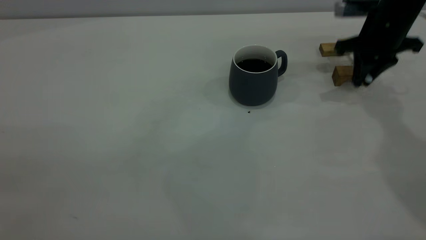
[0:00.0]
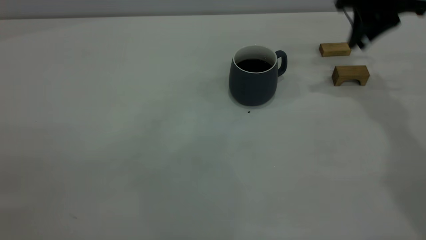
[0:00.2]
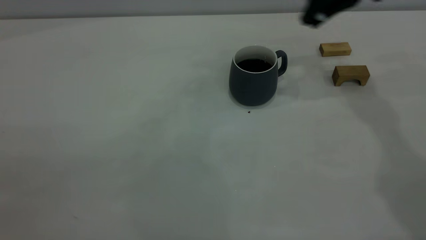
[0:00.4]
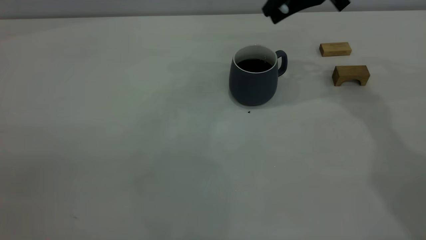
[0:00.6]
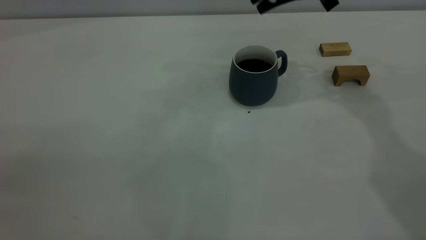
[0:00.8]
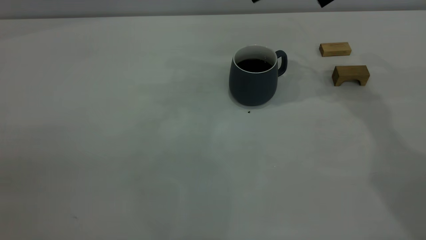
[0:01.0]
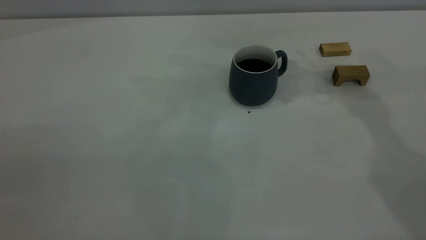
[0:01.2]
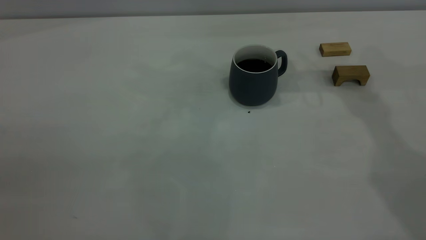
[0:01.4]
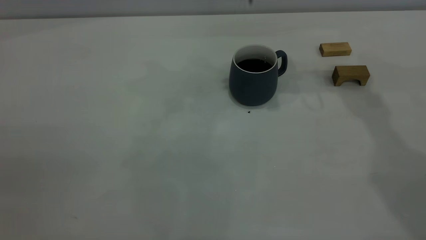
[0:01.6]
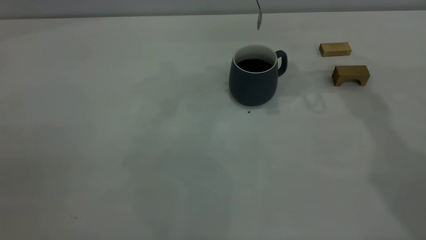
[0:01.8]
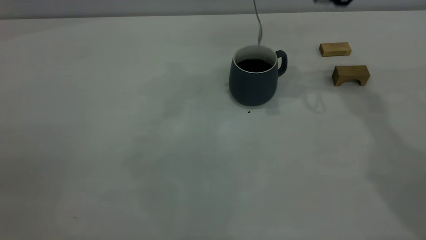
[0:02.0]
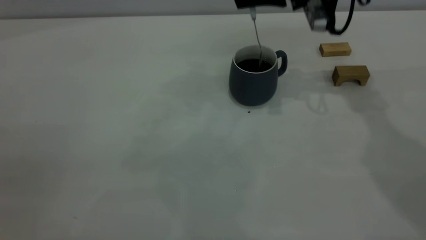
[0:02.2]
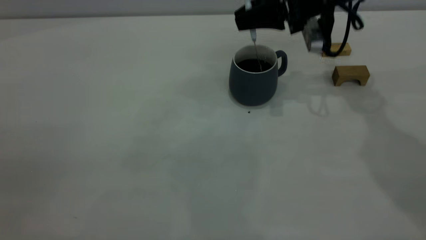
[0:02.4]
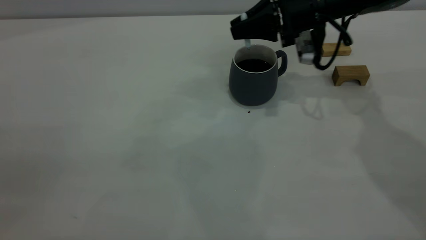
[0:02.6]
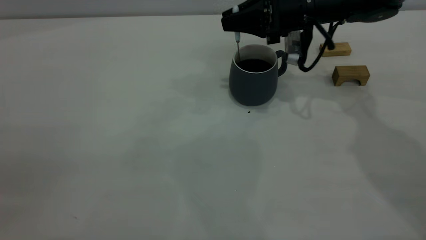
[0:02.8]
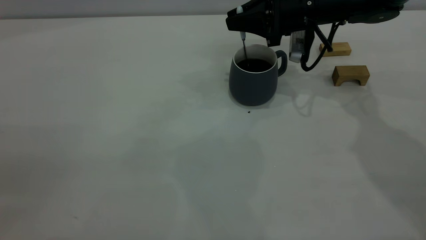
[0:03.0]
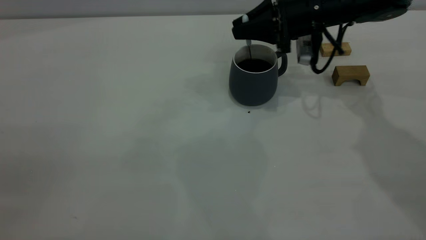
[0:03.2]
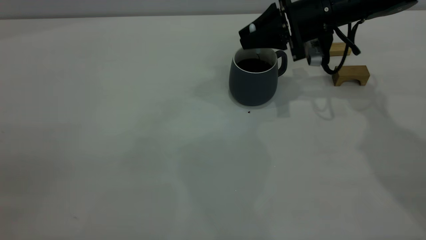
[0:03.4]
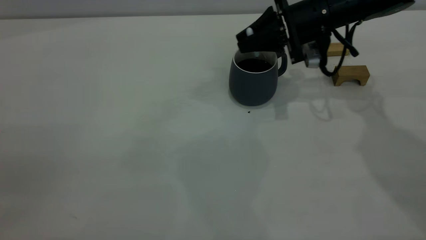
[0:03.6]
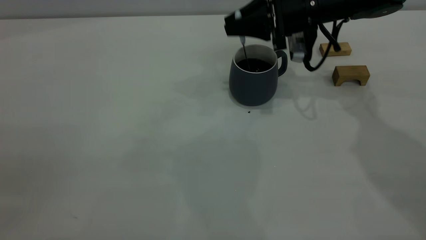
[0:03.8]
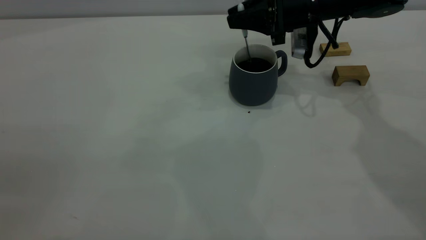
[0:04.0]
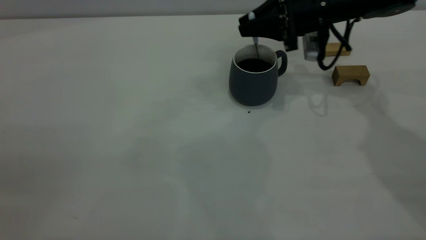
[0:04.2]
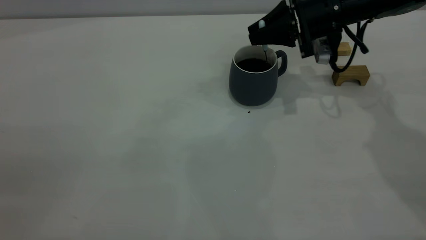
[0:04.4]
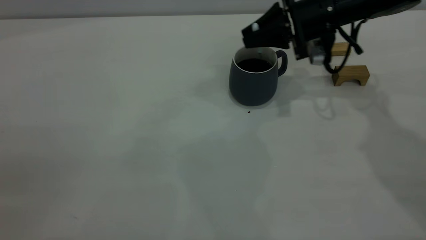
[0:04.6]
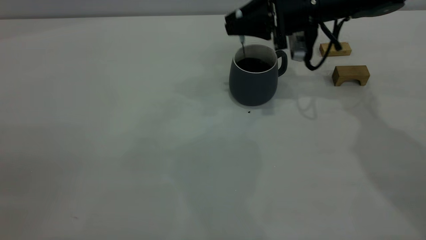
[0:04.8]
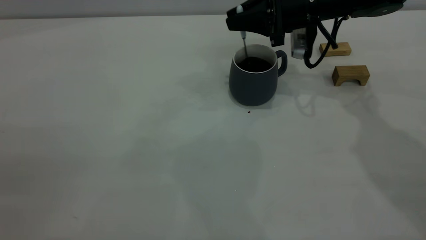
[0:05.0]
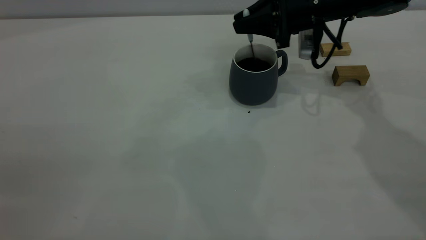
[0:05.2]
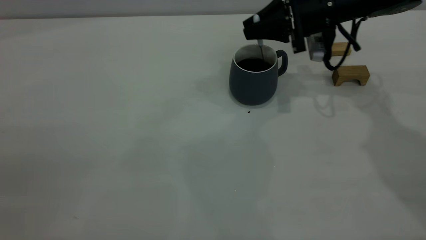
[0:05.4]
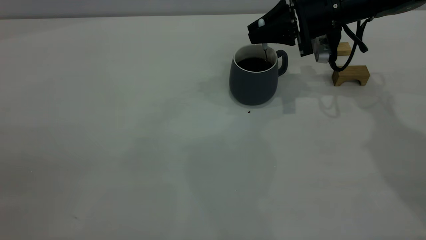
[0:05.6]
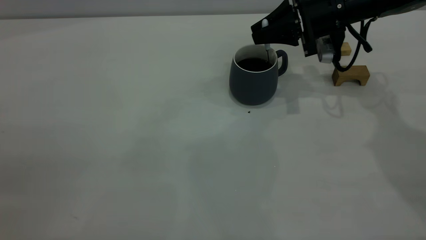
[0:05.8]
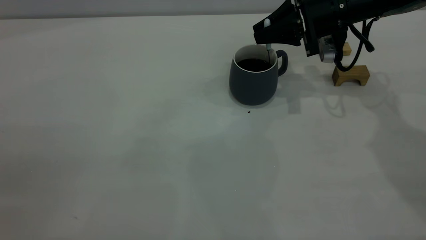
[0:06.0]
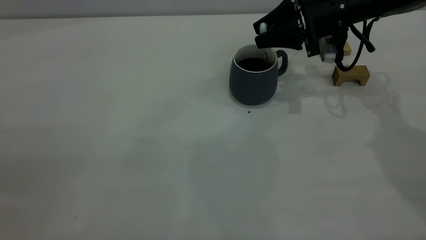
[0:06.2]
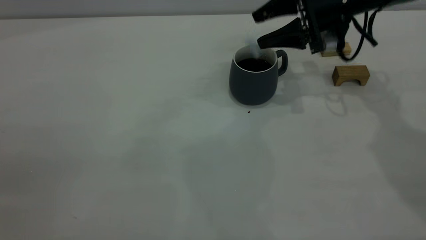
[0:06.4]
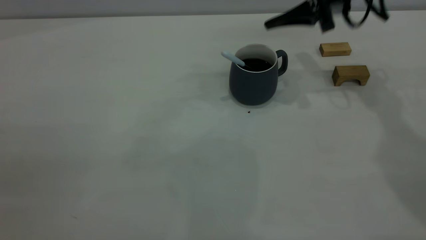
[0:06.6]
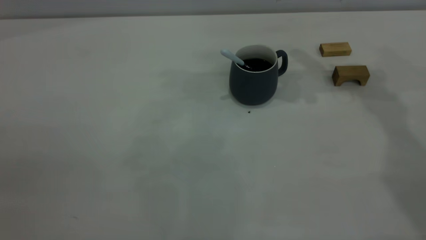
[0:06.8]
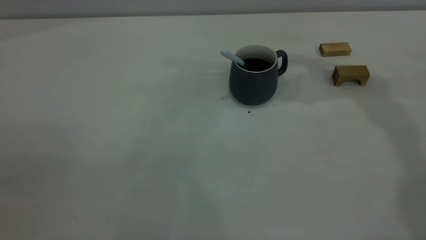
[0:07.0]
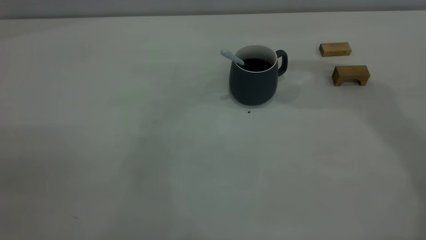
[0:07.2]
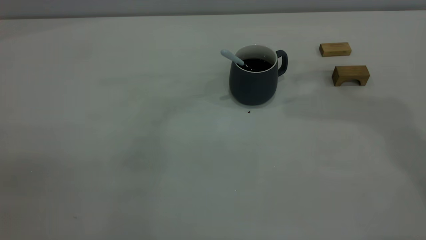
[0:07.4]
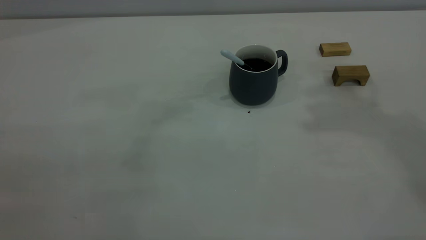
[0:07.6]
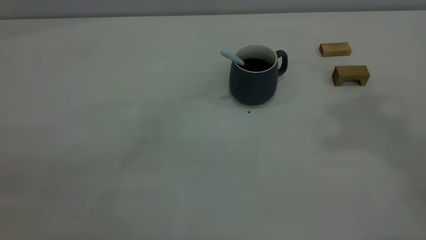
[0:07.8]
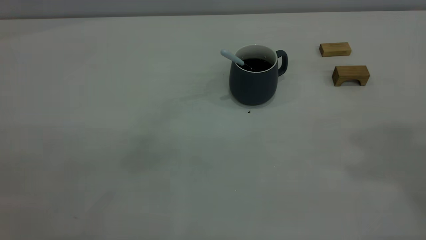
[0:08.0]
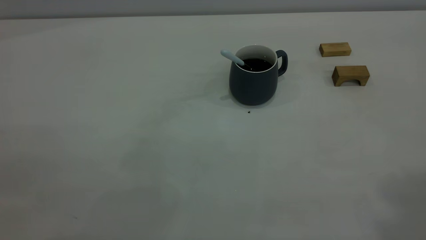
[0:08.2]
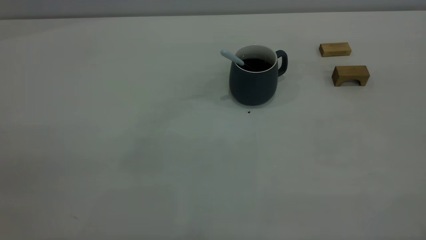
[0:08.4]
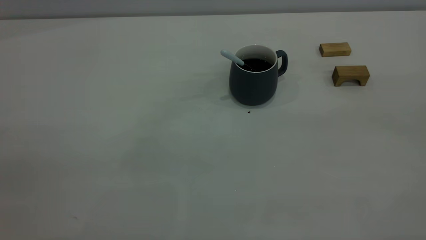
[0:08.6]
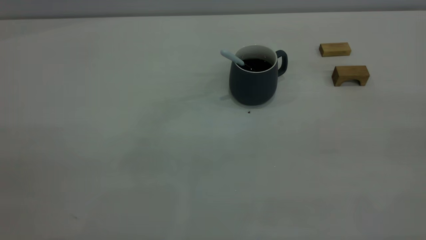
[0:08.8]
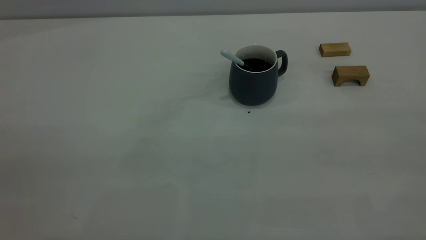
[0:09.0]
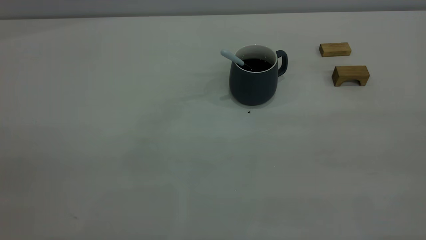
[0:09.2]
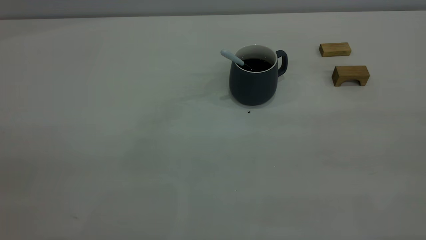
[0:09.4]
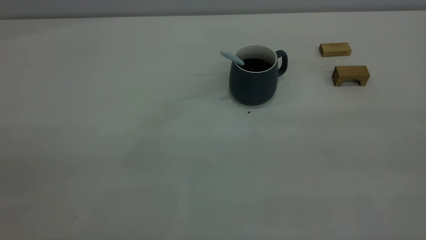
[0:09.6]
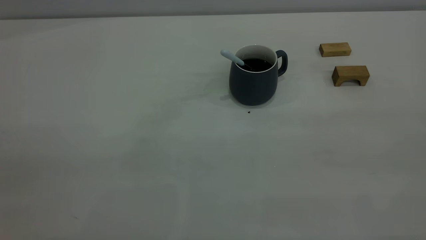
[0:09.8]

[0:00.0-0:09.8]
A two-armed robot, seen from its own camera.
Step, 0:00.2 to 0:06.4: Stir the coffee in the cup.
0:00.0 to 0:01.4: The right gripper travels upward and to the left by some 15 cm.
0:01.4 to 0:02.8: The right gripper heads downward, covering approximately 15 cm.
0:02.8 to 0:05.6: The grippers stay close to where they were, moving slightly.
0:05.6 to 0:07.0: The right gripper heads upward, covering about 20 cm, and opens up.

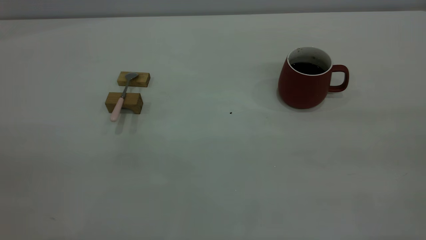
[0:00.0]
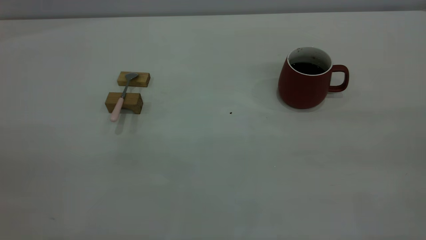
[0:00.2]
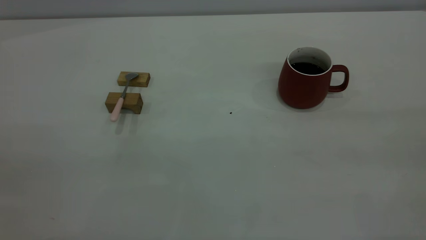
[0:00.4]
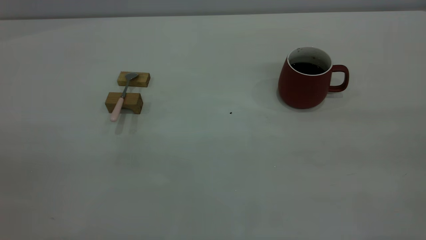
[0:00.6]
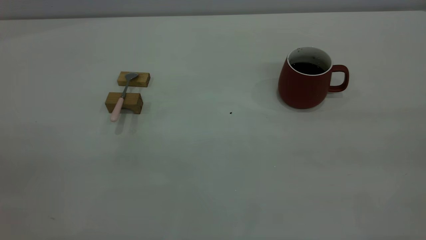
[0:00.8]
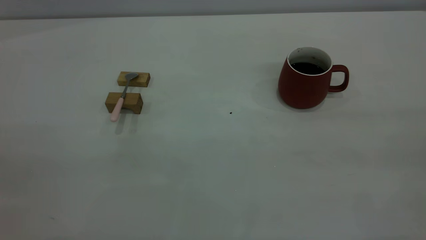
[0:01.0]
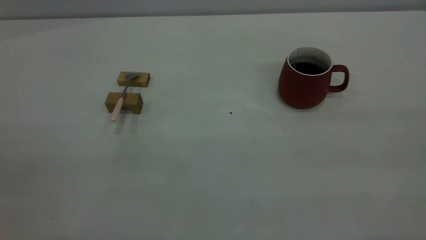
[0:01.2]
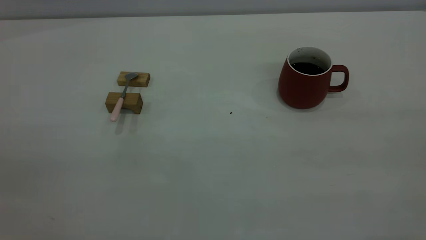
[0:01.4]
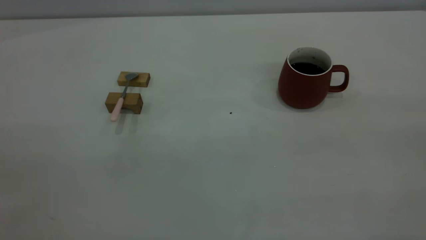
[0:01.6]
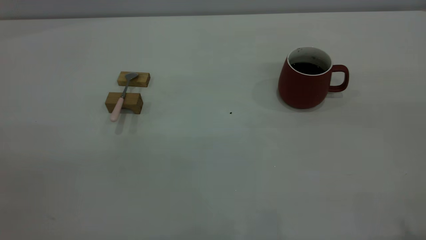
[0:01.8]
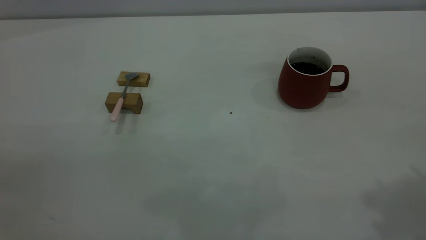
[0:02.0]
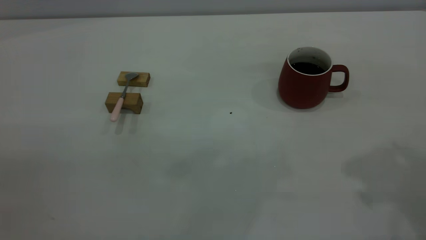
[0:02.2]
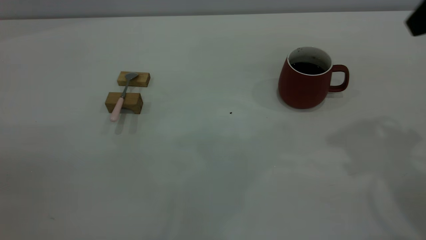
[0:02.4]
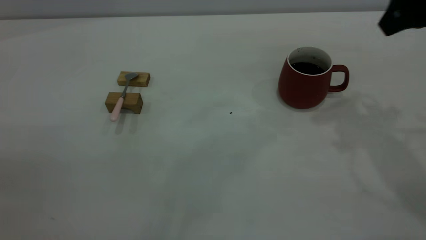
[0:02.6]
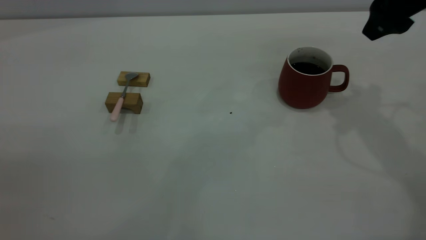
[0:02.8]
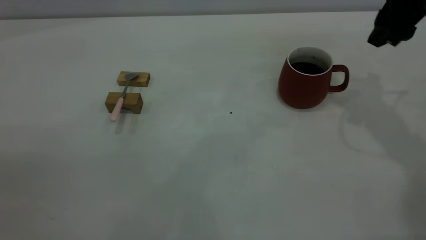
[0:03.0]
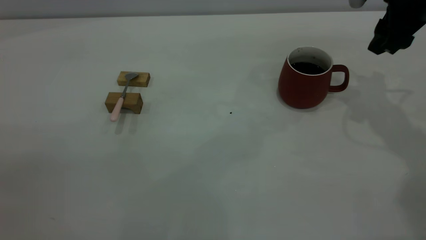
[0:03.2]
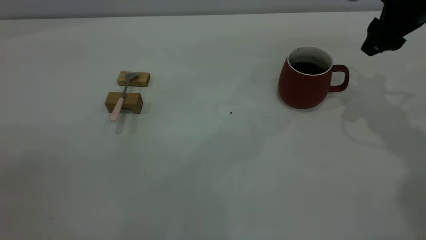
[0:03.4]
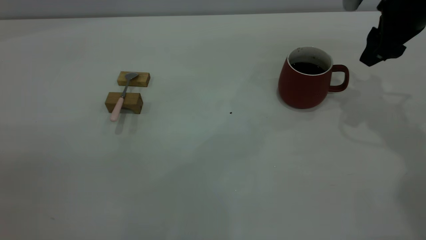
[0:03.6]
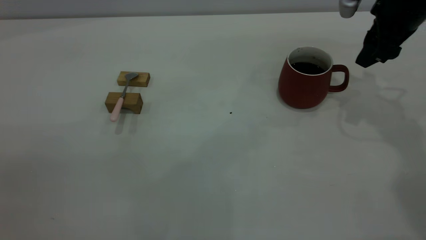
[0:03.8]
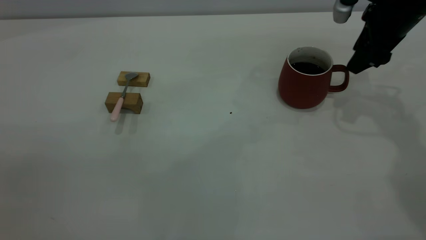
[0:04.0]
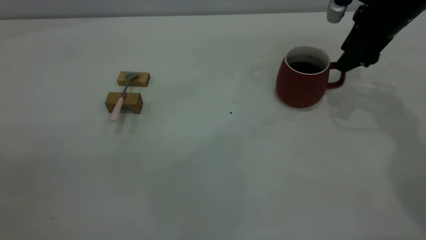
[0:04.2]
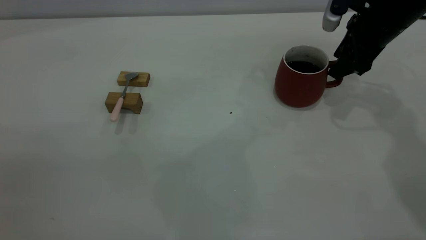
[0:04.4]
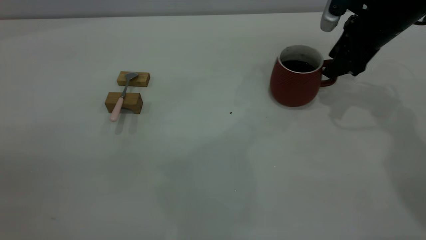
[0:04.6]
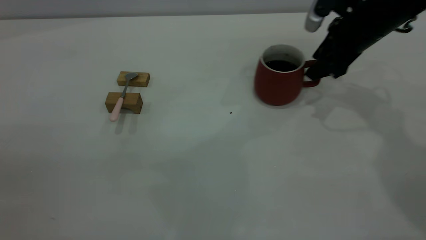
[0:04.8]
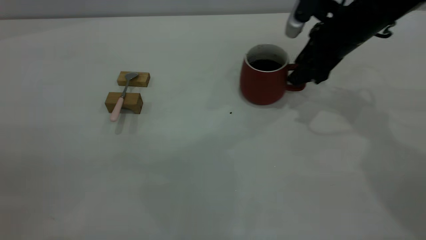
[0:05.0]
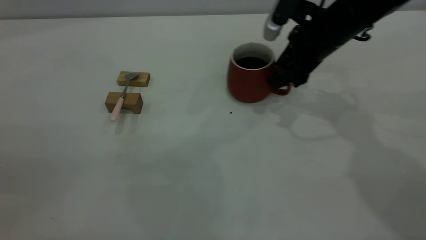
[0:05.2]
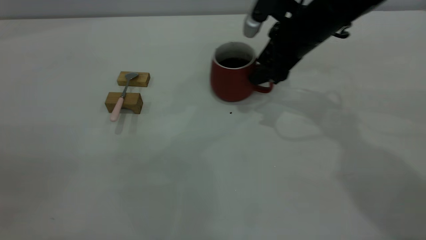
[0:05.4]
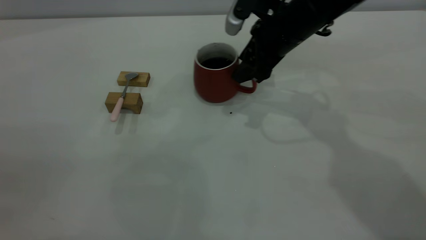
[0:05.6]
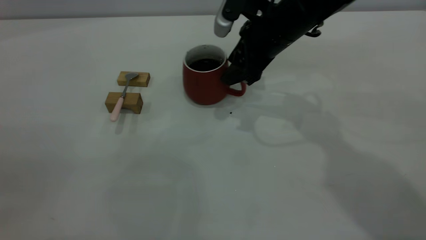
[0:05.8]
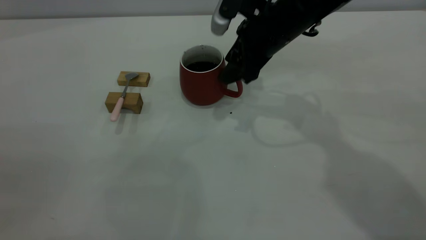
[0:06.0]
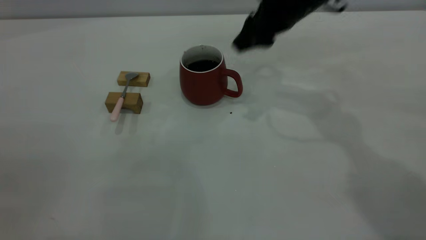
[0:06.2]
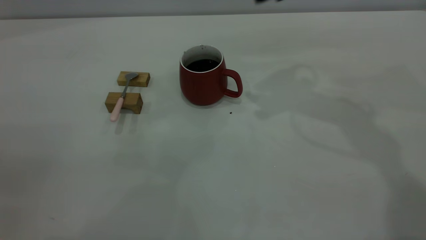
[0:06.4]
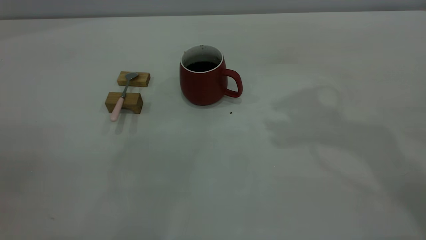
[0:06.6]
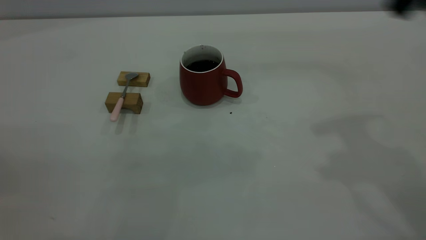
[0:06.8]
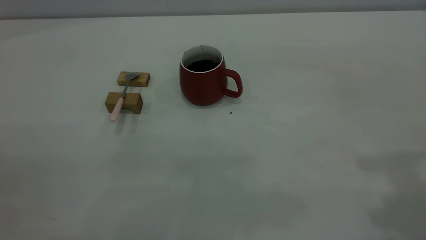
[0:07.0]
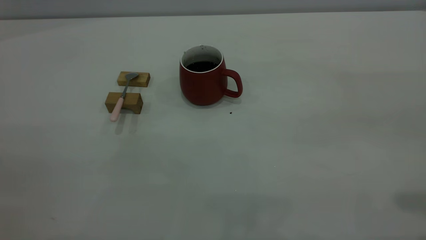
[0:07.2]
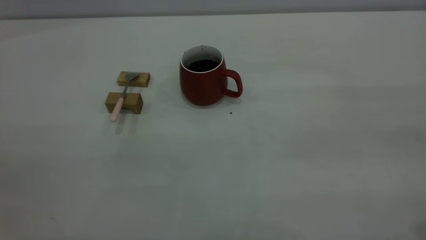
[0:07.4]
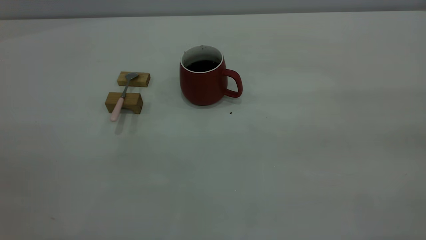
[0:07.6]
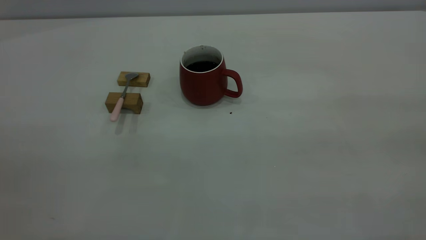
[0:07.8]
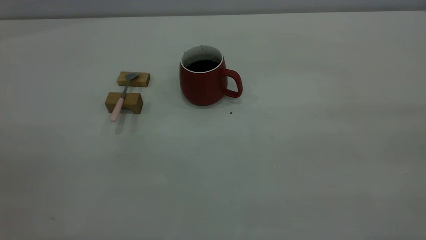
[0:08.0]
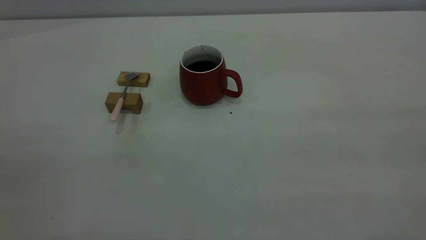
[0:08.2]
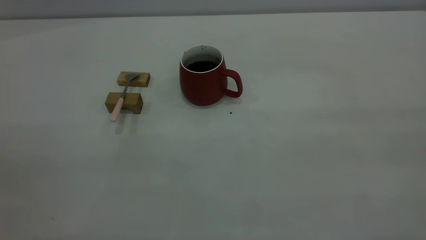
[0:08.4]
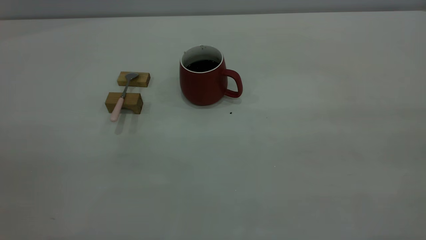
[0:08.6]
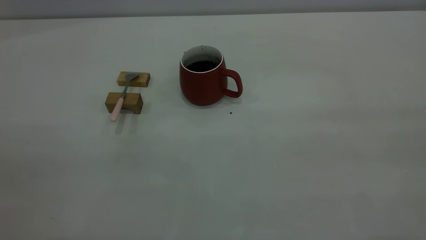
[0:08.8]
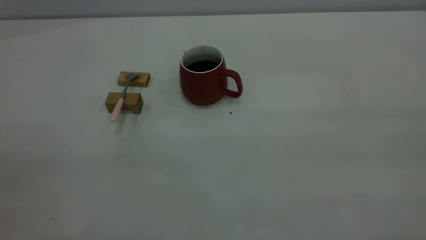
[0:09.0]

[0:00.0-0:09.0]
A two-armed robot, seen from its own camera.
Step, 0:00.0 to 0:06.0: Move the cup with coffee to the center of view.
0:01.6 to 0:03.0: The right gripper travels forward and downward by approximately 40 cm.
0:03.0 to 0:04.4: The right gripper heads downward, covering some 10 cm.
0:04.4 to 0:06.0: The right gripper goes about 15 cm to the left.
0:06.0 to 0:07.6: The right gripper heads backward, upward and to the right, covering approximately 50 cm.
